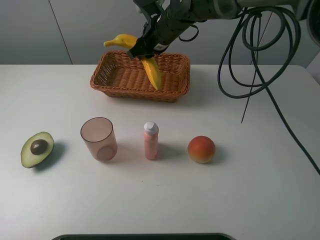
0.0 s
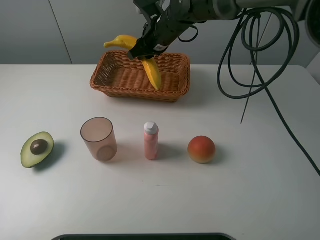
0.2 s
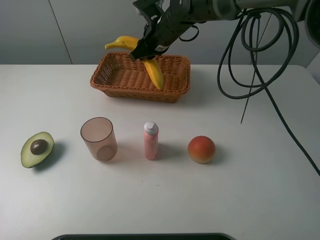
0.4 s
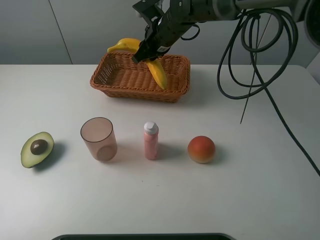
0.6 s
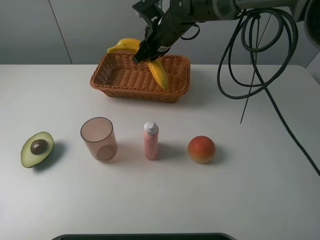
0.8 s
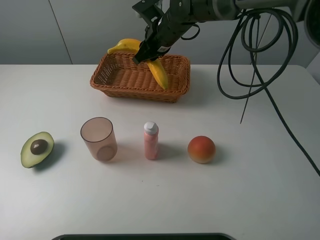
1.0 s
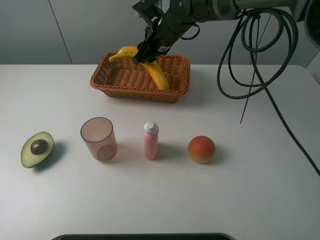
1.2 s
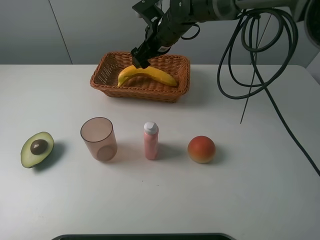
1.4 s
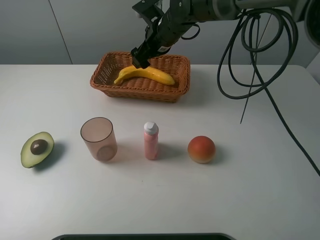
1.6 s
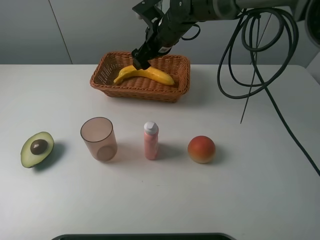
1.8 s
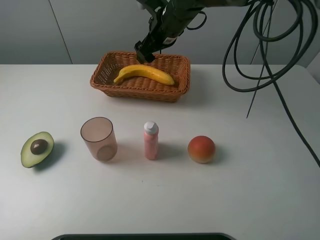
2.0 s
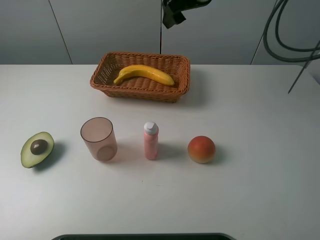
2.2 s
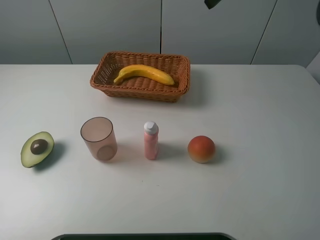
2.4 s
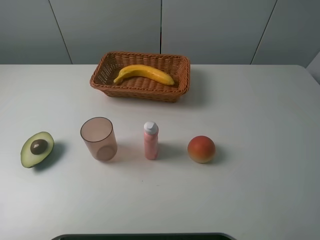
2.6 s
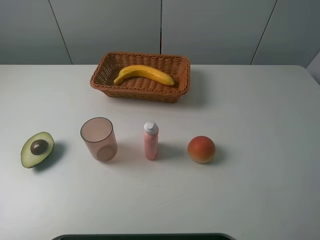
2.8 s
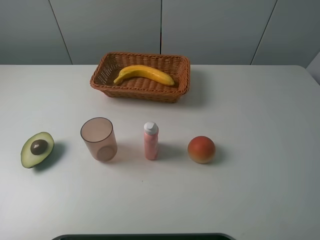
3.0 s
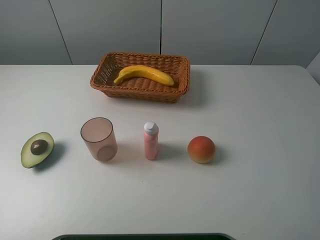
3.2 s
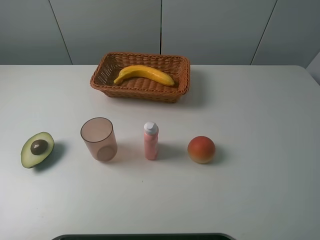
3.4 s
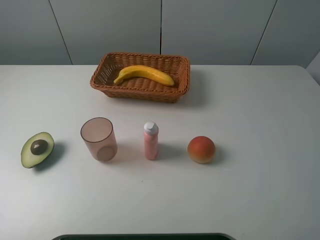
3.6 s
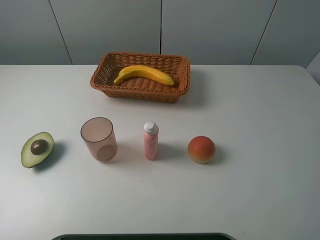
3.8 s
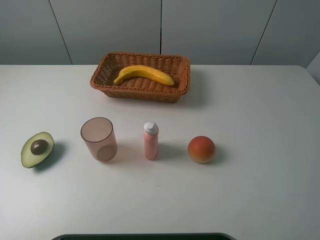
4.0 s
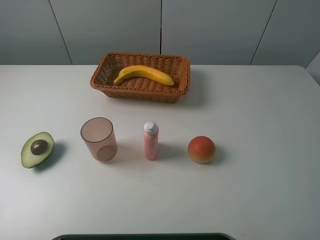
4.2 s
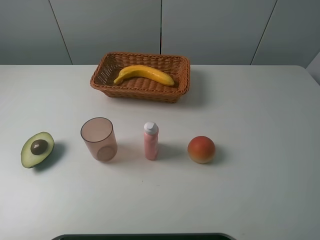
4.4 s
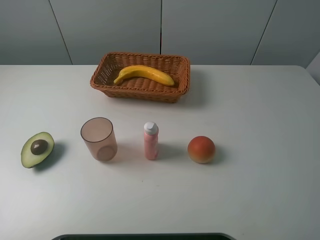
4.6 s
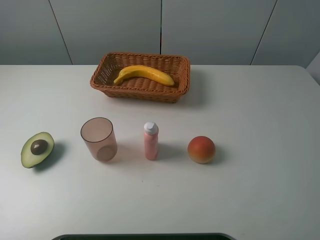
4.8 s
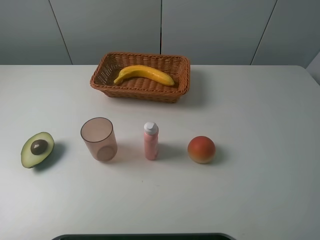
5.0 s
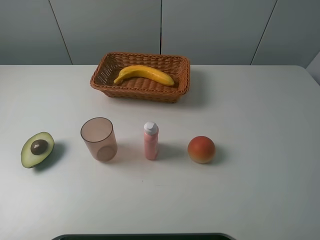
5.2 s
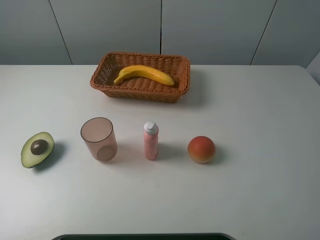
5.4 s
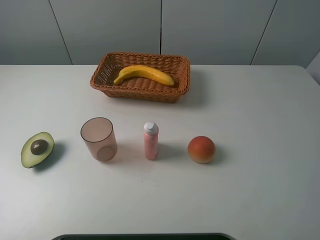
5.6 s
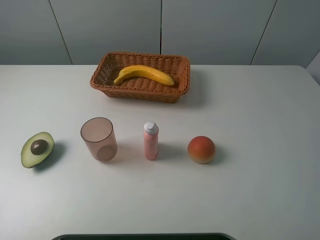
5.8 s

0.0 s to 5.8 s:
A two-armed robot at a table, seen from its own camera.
Task of the whole recording: randomly pick up an item from the table and put it in the basket.
Step, 0.0 to 2.0 s: Place the banana into the basket with the right gripper.
0.0 to 1.4 s: The right gripper opens its fingers.
1.4 to 2.8 s: The right gripper moves to the right, upward and backward, some 40 cm.
4.4 to 5.8 s: Both grippers stay about where they are.
